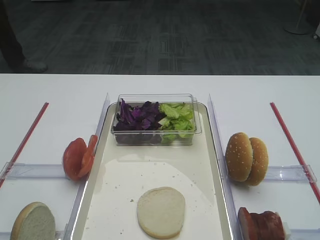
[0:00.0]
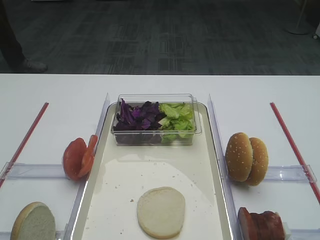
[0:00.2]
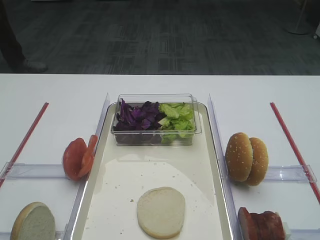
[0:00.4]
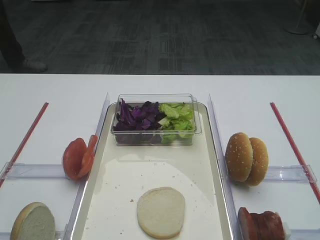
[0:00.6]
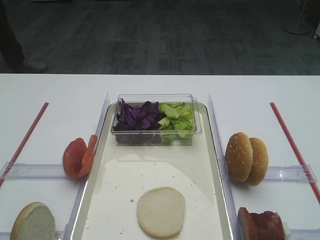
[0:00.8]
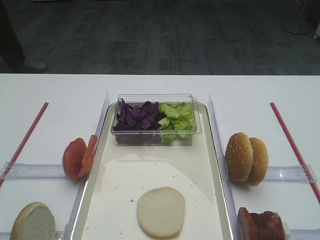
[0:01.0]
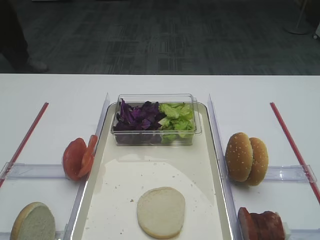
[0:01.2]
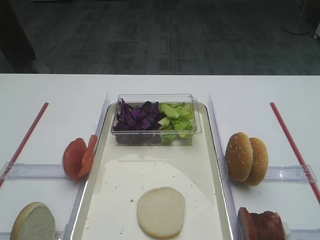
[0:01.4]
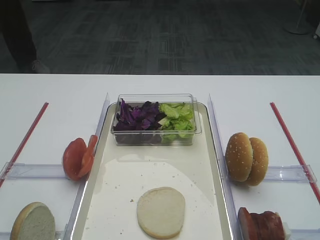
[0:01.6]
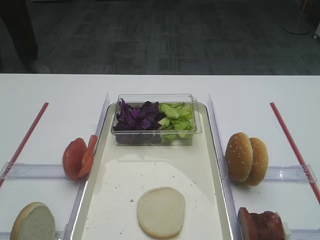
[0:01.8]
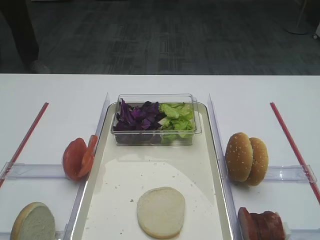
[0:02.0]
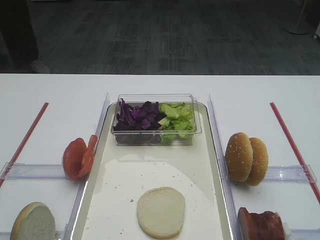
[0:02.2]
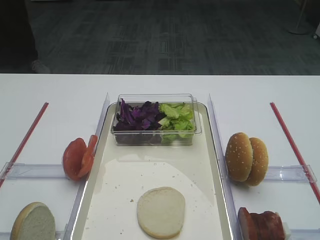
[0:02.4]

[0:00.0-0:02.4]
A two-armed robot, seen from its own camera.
0:00.0 to 0:02.4: The two grippers keep their place.

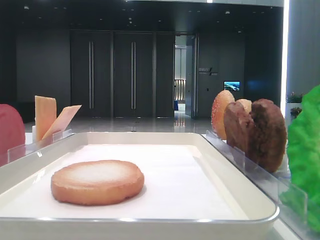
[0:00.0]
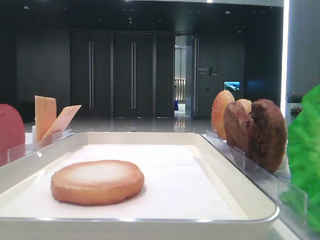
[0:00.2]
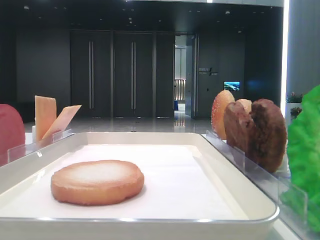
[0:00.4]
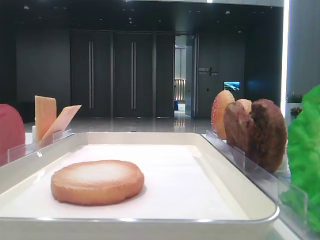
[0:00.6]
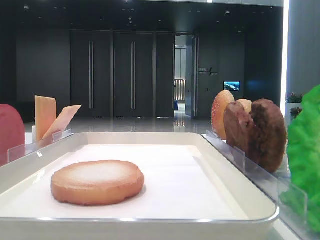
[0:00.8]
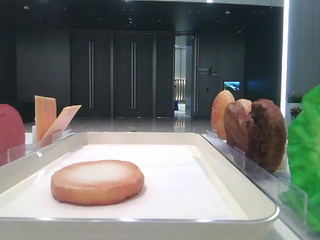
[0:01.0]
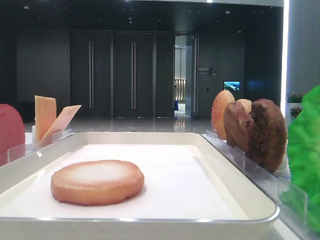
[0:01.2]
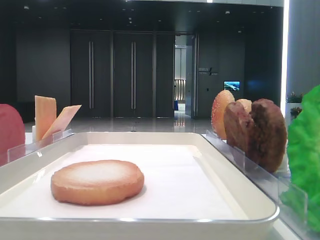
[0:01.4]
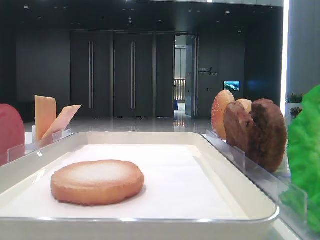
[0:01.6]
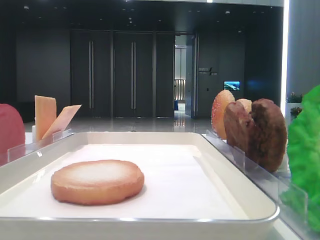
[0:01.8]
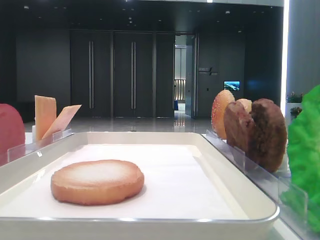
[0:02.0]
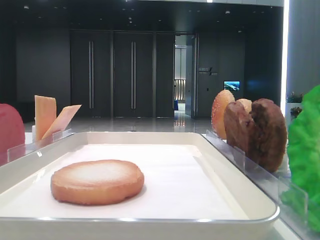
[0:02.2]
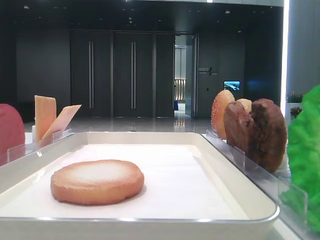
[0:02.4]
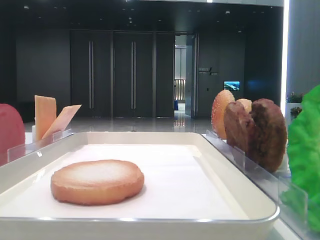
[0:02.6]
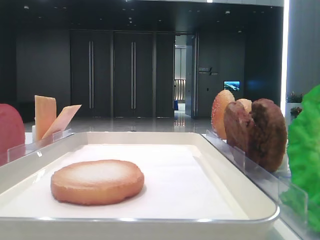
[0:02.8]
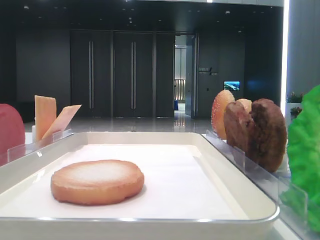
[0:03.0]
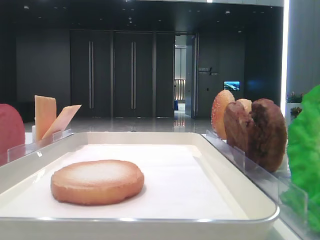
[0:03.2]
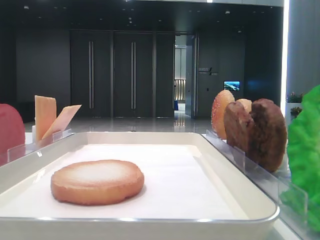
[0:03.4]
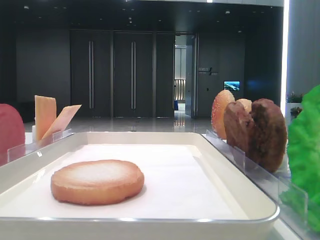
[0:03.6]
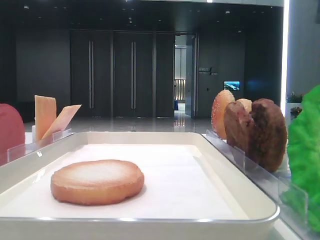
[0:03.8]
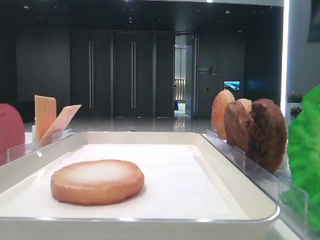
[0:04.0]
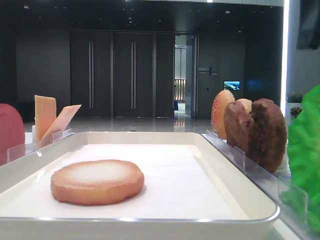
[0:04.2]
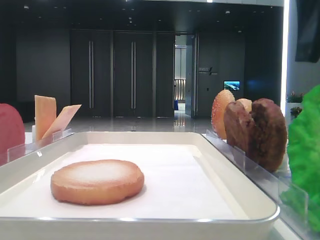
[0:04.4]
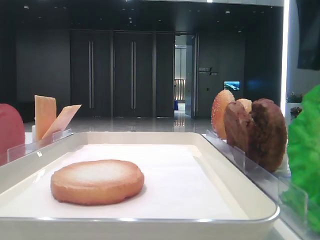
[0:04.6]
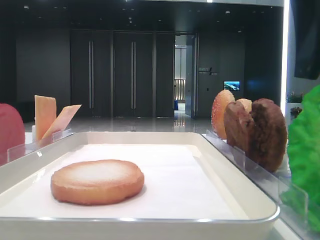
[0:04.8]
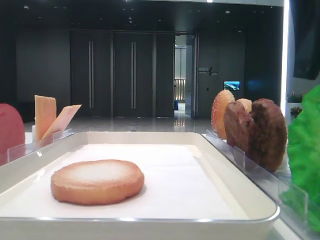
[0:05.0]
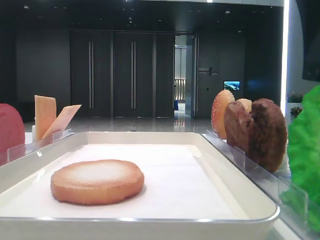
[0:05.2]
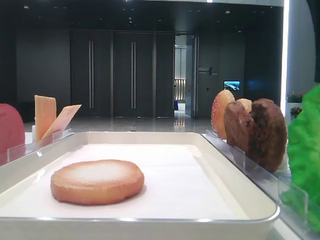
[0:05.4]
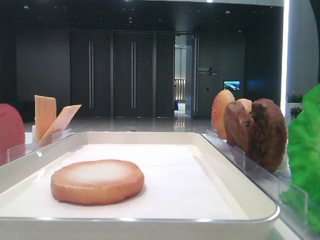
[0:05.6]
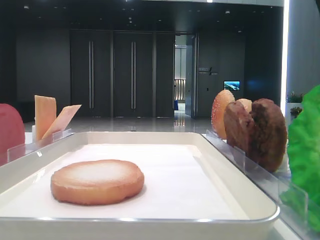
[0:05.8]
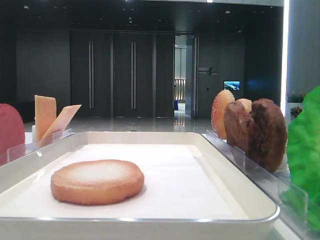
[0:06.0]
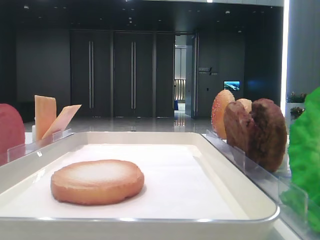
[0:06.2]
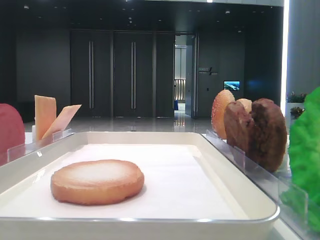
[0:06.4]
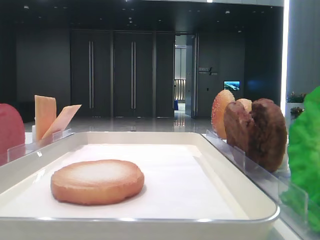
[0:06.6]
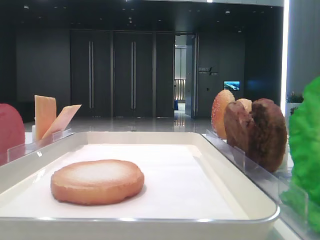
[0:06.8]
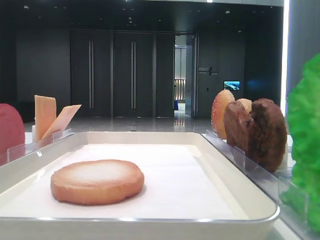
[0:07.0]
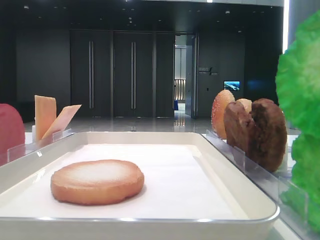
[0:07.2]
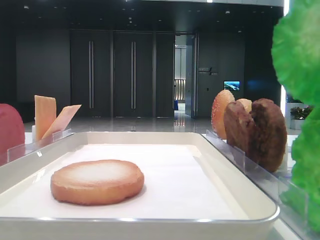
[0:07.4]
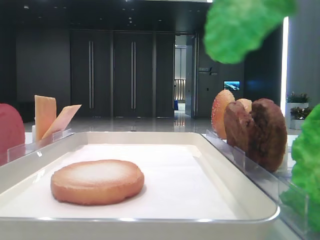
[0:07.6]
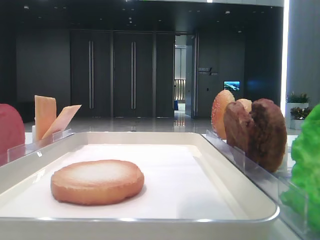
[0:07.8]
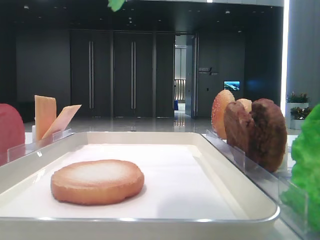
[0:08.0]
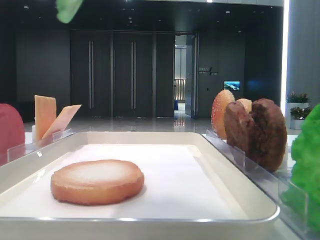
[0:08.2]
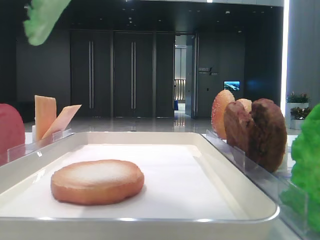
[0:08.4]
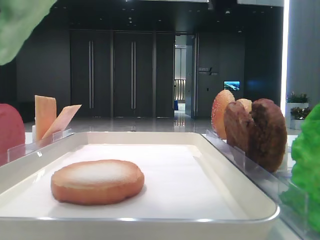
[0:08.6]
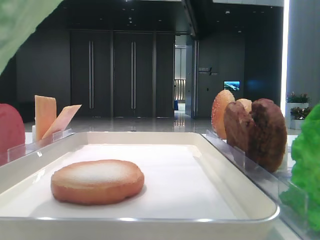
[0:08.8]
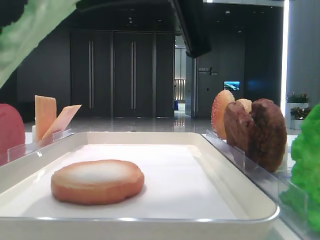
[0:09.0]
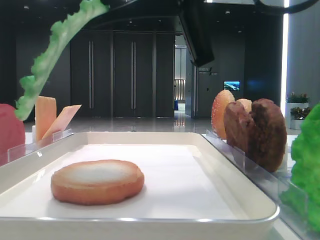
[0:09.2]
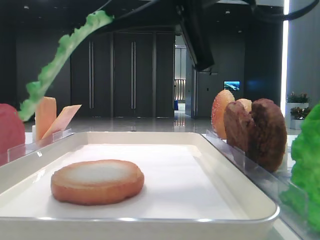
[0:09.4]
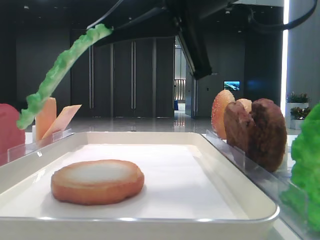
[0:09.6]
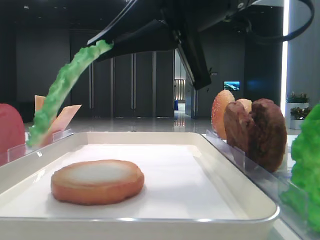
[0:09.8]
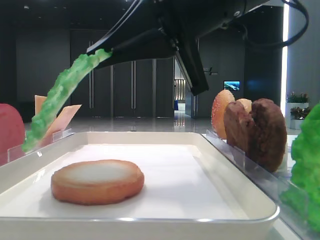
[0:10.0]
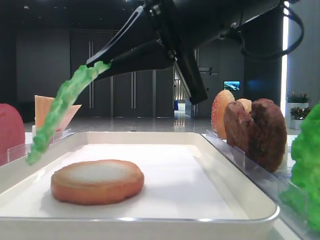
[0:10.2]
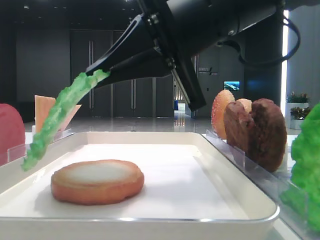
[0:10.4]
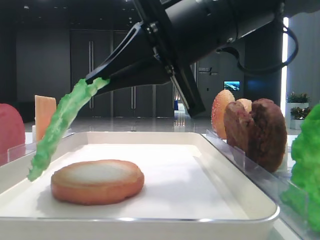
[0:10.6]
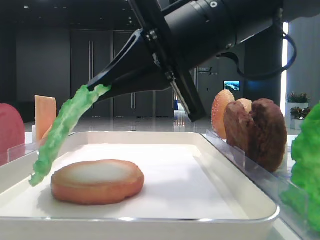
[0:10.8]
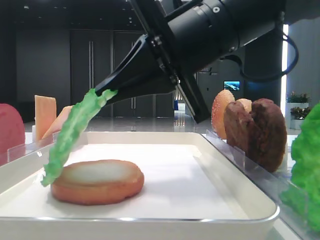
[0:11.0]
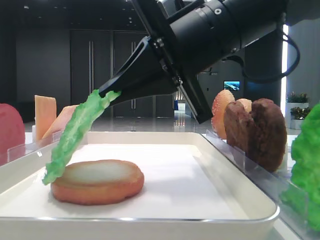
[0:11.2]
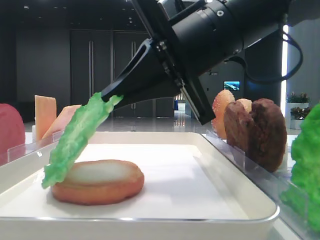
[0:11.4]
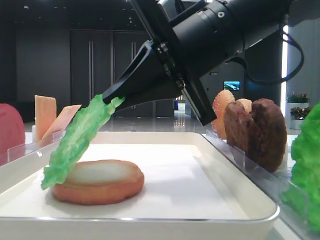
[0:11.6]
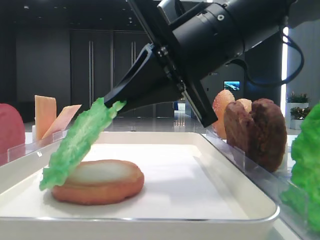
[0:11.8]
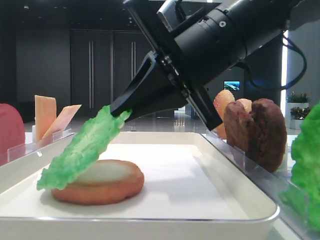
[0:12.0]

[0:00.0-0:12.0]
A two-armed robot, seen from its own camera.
Step, 0:00.0 to 0:06.2: Grab the lettuce leaf with the right hand.
0:03.0 to 0:04.4: The right gripper moves to the left, some 5 cm.
0:04.4 to 0:06.0: The right gripper closes its fingers.
0:06.0 to 0:07.6: The right gripper heads upward, covering roughly 10 cm.
0:07.6 to 0:09.0: The right gripper moves to the left, downward and forward, some 15 cm.
0:09.0 to 0:10.4: The right gripper heads downward, covering some 5 cm.

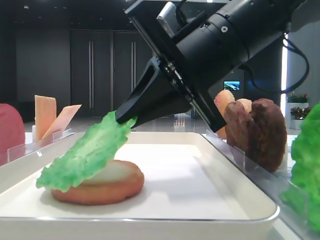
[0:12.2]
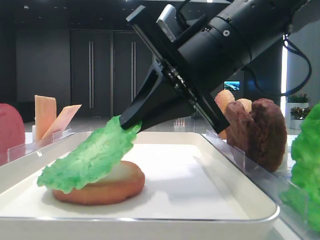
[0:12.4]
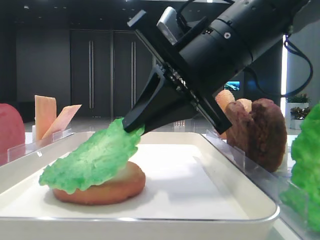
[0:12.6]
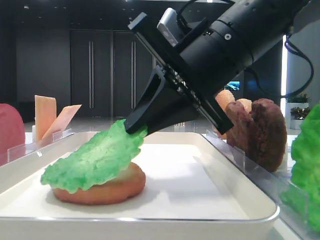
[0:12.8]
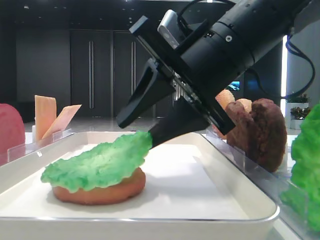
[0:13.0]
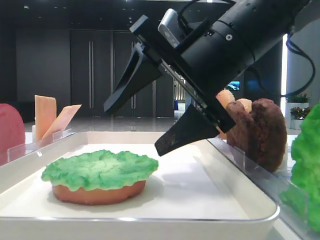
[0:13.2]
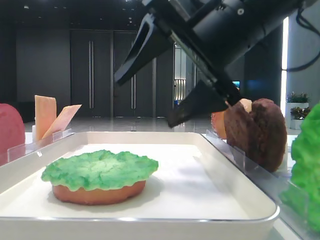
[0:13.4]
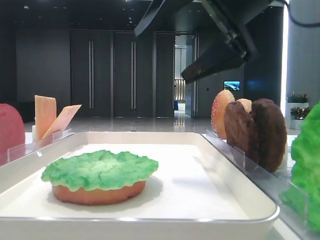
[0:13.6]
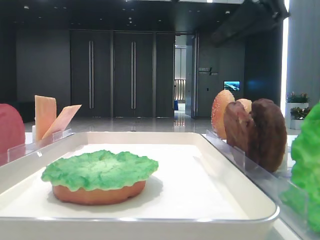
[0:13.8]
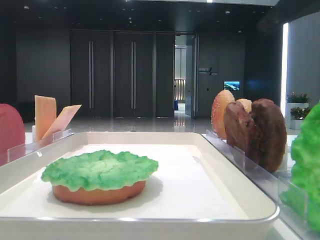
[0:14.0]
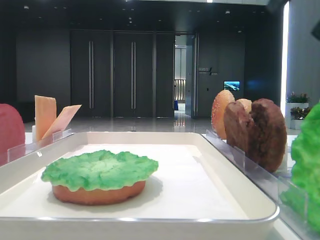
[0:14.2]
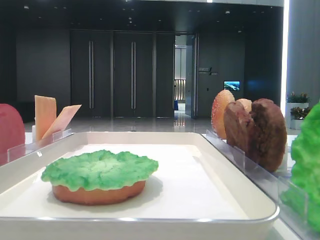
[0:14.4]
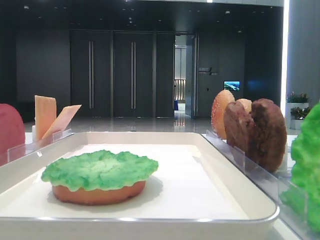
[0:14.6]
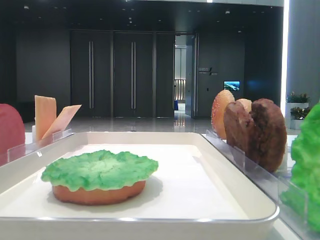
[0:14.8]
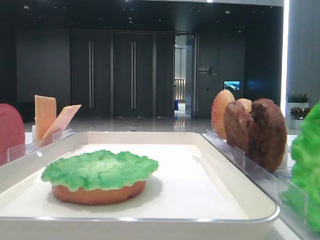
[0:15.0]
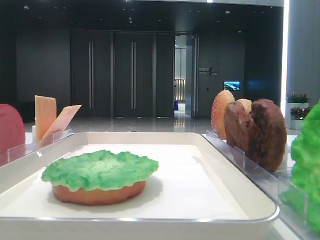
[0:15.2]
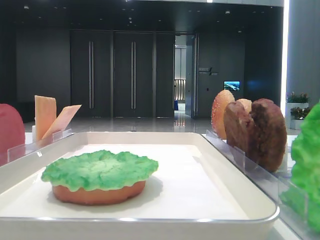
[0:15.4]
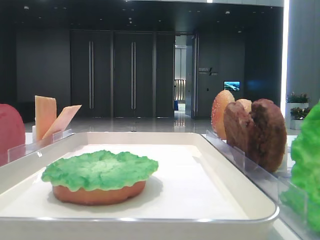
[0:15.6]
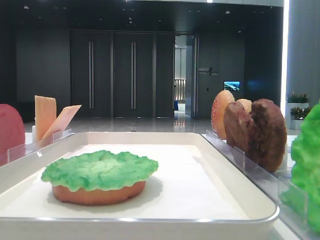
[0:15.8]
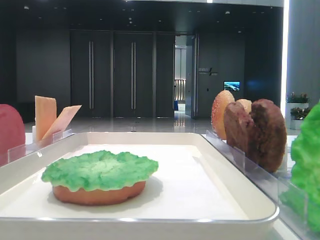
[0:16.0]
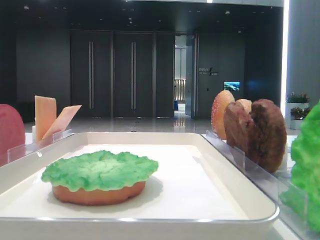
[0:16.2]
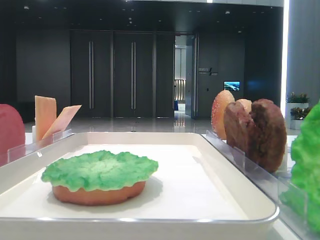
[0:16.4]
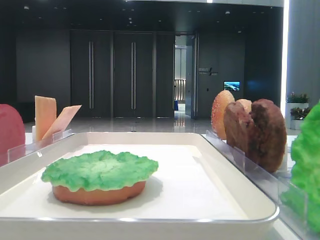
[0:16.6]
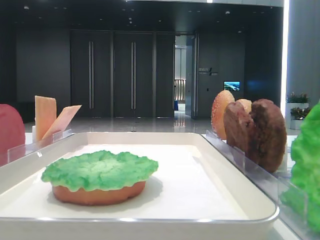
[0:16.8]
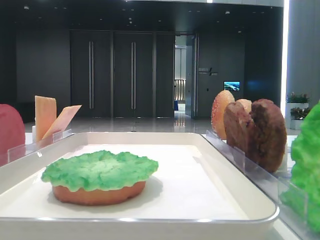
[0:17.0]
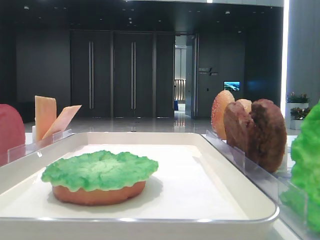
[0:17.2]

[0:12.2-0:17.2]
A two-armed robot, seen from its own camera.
0:12.2 to 0:13.8: The right gripper goes roughly 15 cm upward and to the right, and opens up.
0:13.8 to 0:15.6: The right gripper goes roughly 25 cm to the right and backward.

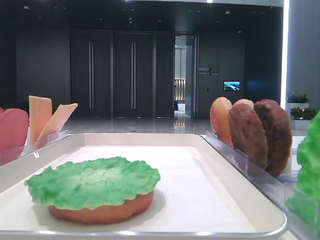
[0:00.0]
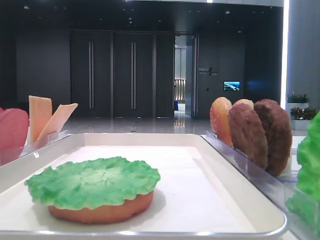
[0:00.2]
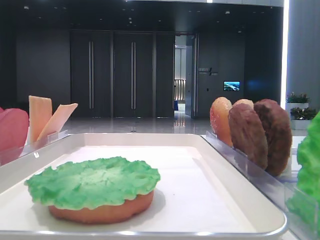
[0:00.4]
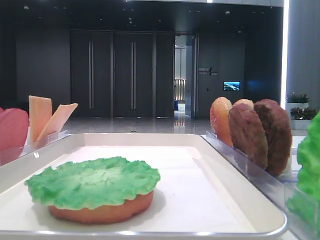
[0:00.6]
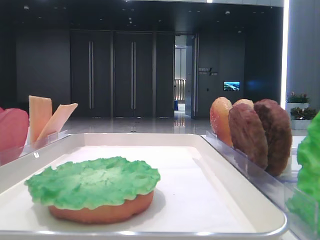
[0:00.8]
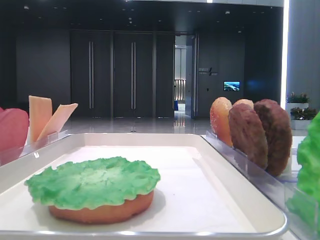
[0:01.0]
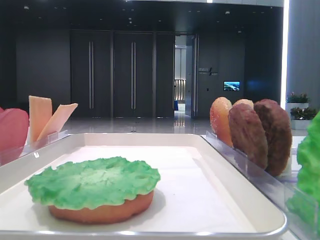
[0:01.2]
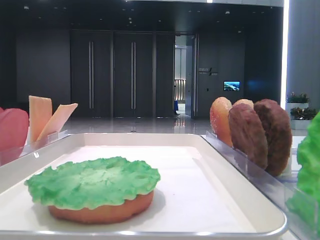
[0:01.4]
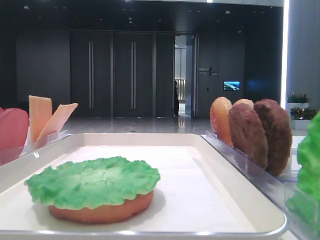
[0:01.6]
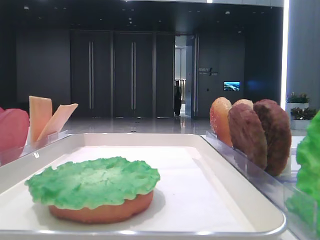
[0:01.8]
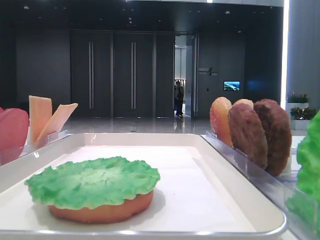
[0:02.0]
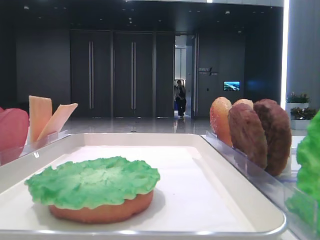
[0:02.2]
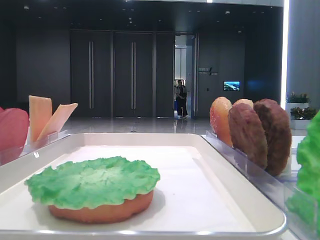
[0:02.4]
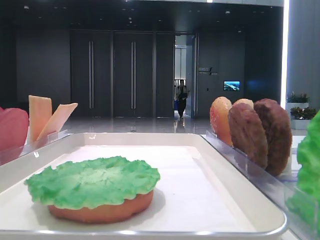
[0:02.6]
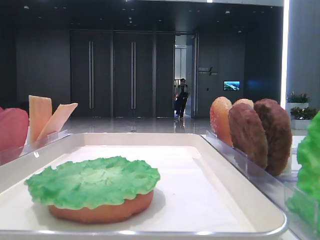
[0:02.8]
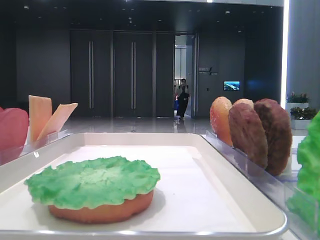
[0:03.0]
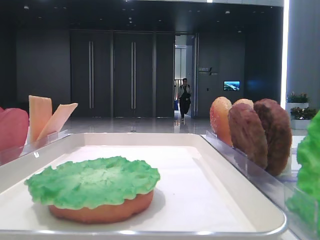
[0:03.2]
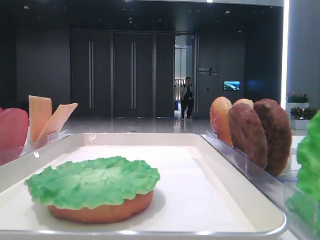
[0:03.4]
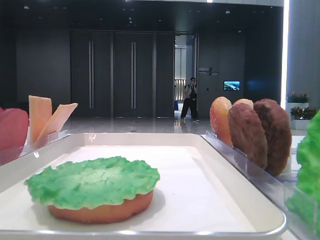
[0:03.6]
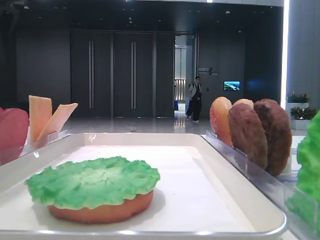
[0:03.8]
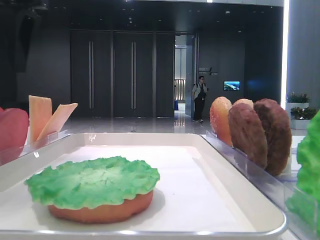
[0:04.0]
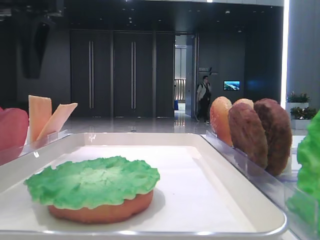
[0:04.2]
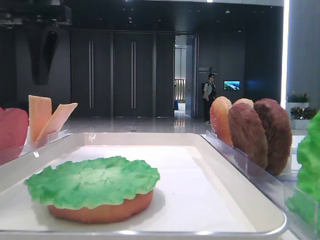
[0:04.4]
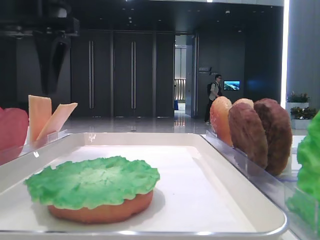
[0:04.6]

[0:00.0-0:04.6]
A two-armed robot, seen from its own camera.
0:01.6 to 0:03.0: The left gripper heads forward, covering about 15 cm.
0:03.0 to 0:04.6: The left gripper moves to the right, approximately 15 cm.
